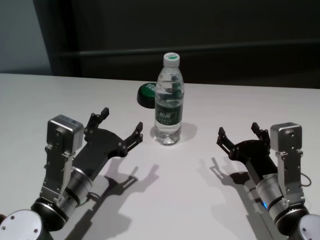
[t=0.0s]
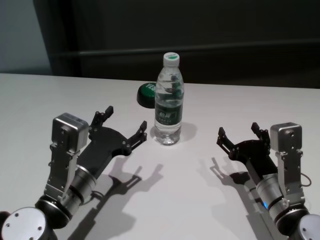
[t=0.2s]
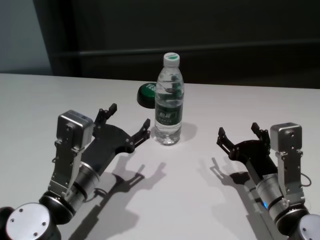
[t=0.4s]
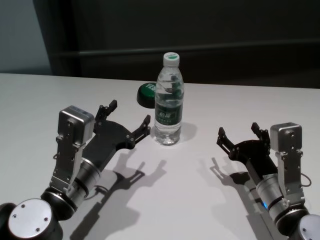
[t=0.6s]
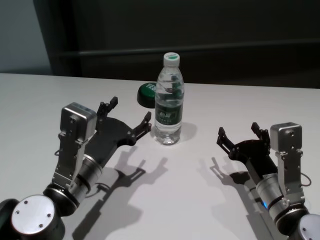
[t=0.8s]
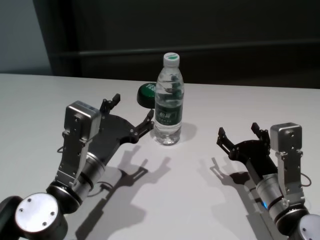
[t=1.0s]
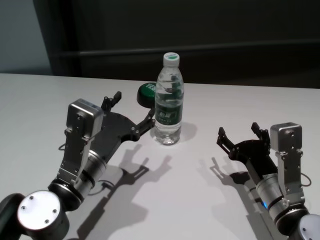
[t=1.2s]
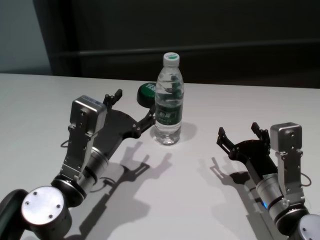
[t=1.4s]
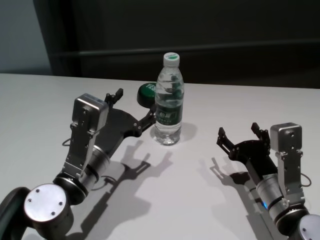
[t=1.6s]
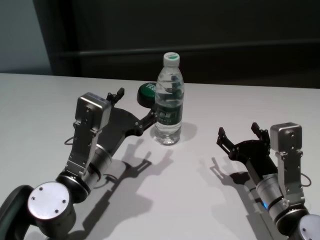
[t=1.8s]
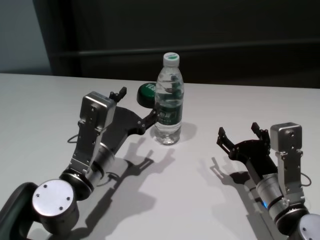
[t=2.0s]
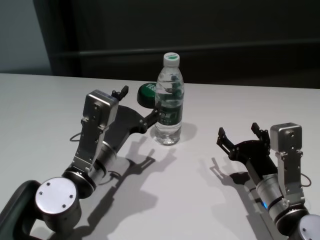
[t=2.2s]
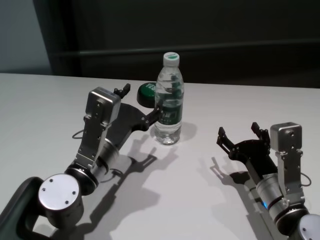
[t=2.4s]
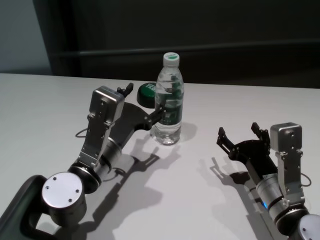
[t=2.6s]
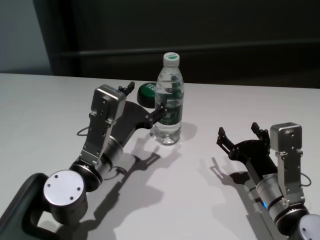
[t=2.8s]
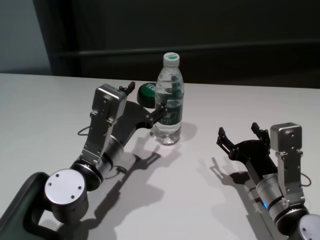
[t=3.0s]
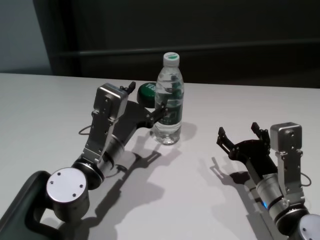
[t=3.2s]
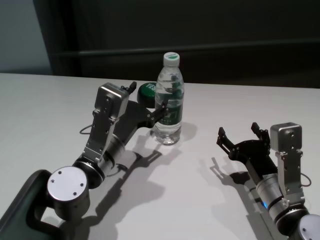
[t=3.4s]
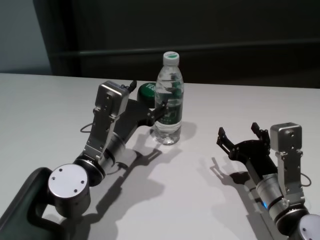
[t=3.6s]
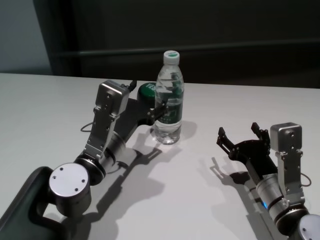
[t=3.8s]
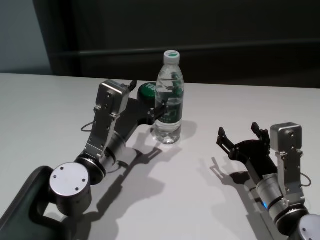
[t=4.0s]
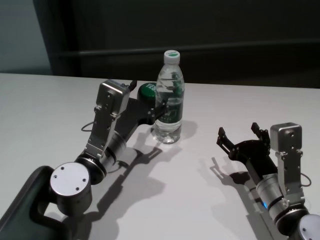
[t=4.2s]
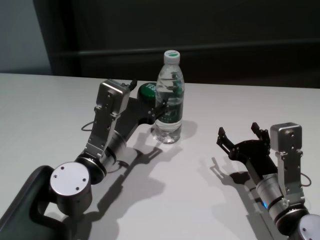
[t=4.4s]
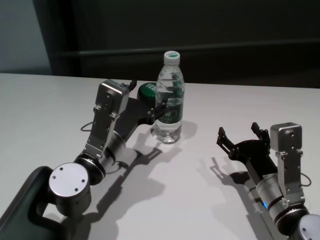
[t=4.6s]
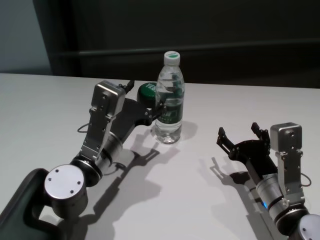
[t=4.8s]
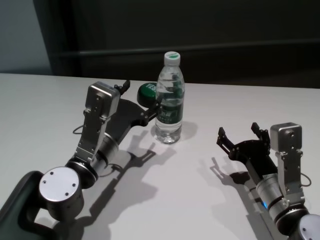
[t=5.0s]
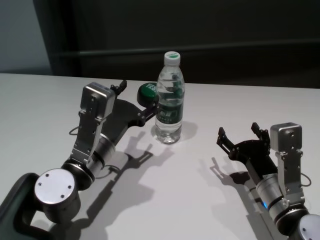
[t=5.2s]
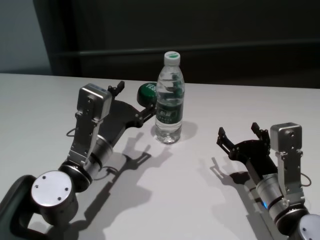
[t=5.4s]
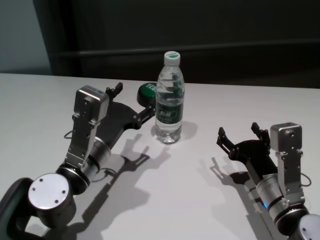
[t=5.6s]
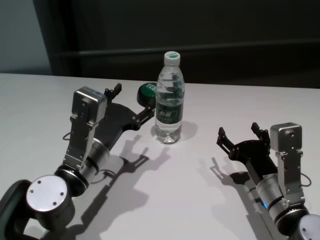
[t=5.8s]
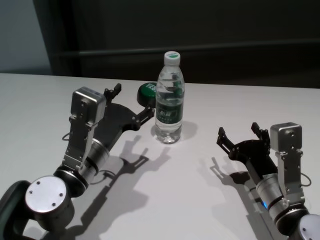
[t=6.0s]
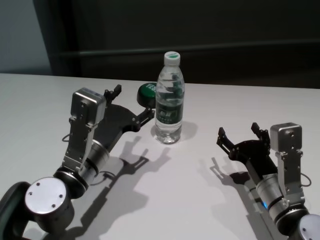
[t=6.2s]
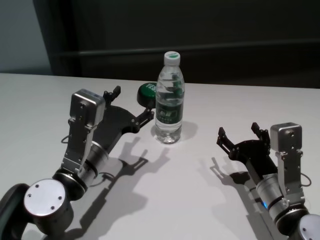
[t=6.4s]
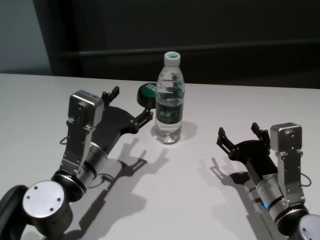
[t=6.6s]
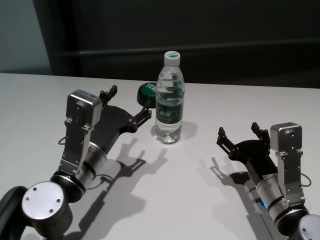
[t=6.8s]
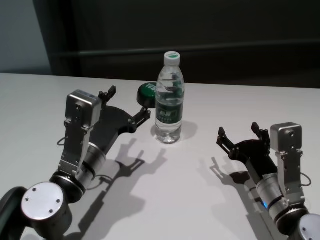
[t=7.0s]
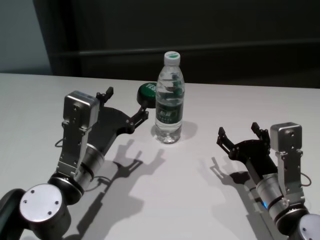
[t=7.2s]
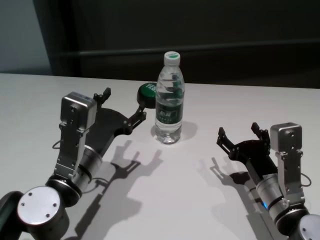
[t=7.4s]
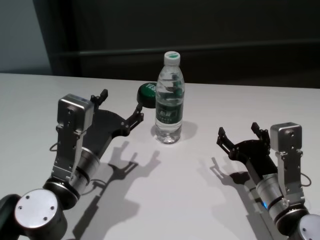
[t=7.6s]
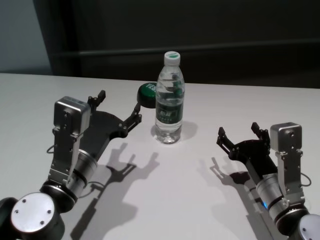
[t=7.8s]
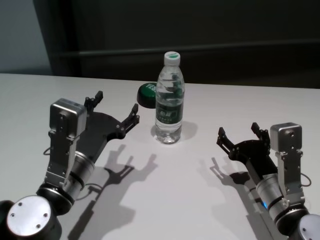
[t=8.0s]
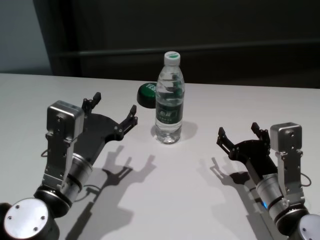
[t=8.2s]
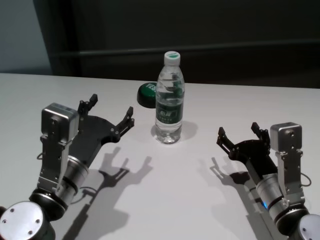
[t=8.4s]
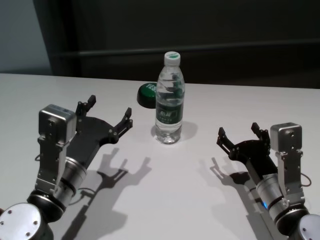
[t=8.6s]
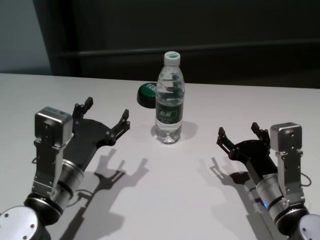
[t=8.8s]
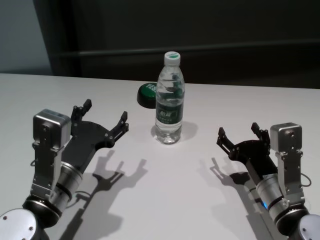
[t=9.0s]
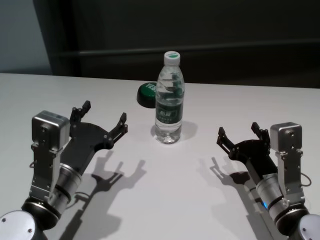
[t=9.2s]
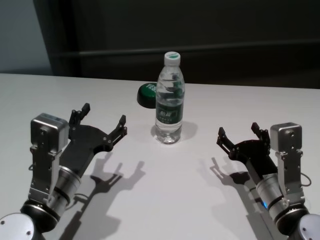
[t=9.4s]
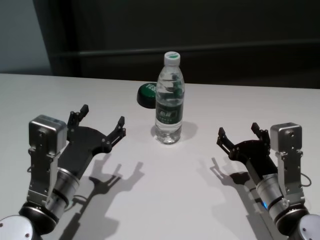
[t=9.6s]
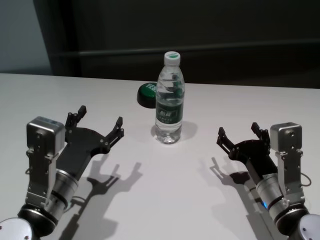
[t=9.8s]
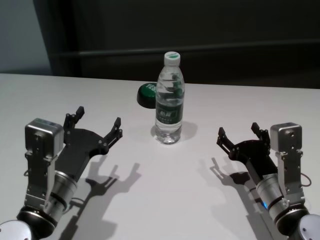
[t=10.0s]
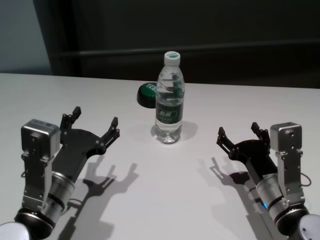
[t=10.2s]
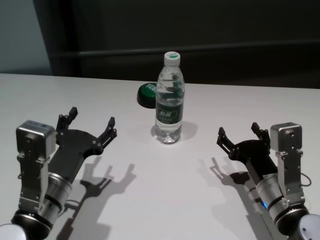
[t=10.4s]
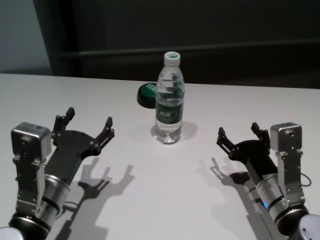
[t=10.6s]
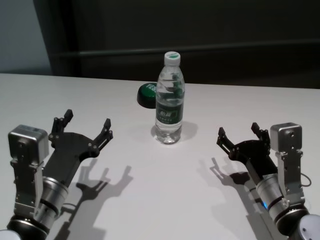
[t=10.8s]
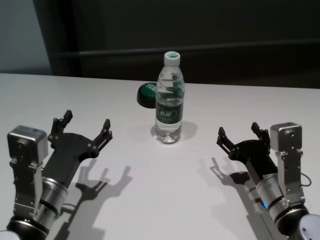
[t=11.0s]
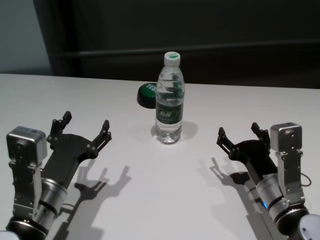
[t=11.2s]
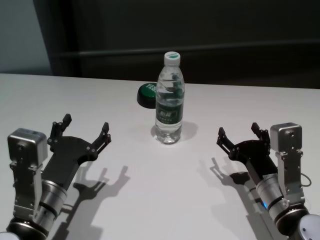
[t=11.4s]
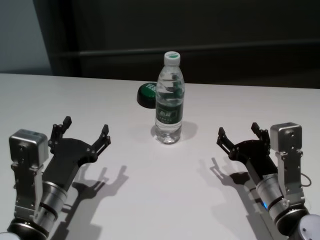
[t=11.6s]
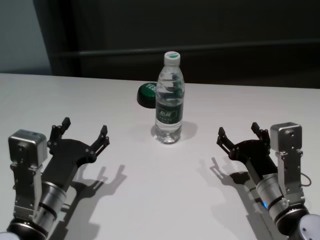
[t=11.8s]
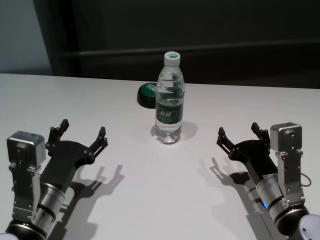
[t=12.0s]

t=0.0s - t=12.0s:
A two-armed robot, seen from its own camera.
Task of the whole recording: return to a safe position after touching an obstacle with your arm on the white table.
Step, t=0.0s - t=6.8s: Touch the bottle with left gripper.

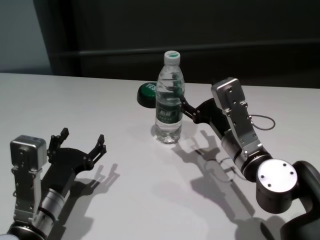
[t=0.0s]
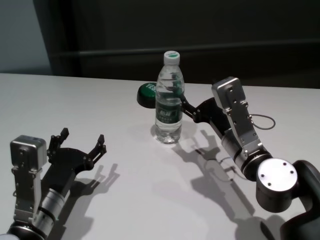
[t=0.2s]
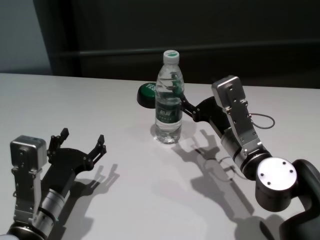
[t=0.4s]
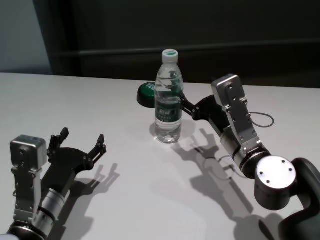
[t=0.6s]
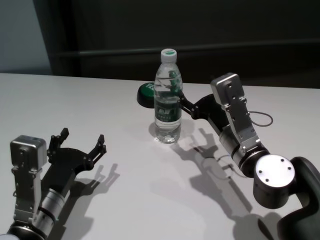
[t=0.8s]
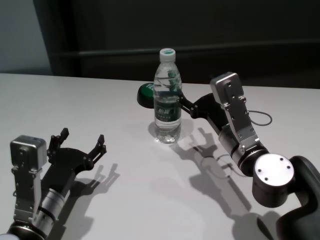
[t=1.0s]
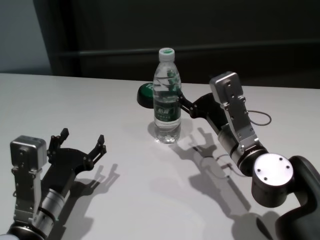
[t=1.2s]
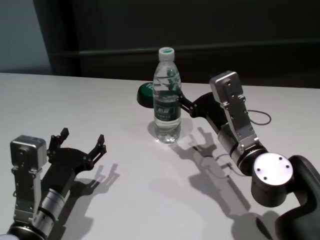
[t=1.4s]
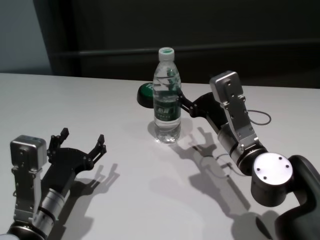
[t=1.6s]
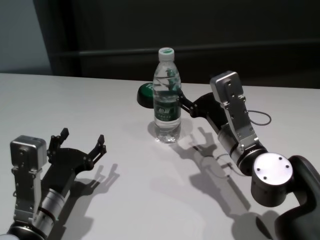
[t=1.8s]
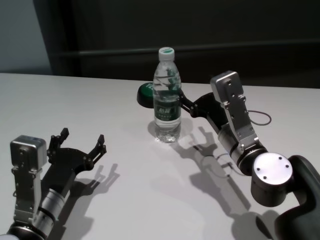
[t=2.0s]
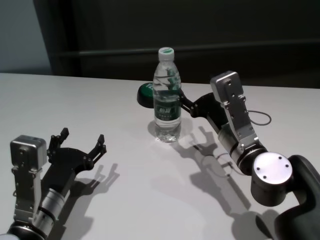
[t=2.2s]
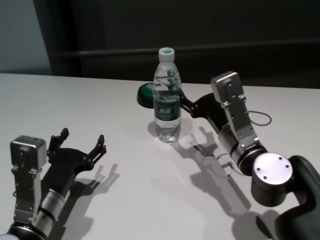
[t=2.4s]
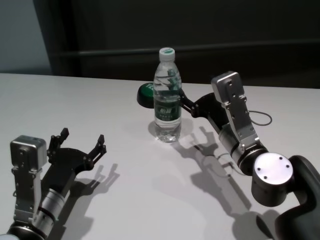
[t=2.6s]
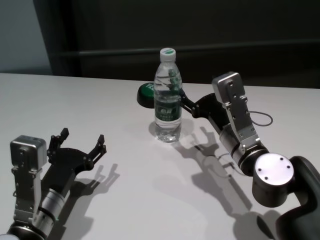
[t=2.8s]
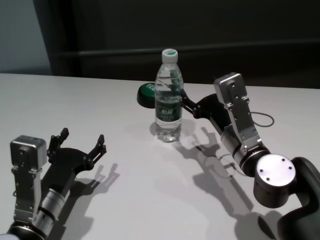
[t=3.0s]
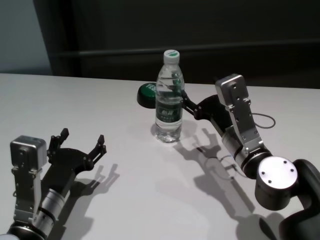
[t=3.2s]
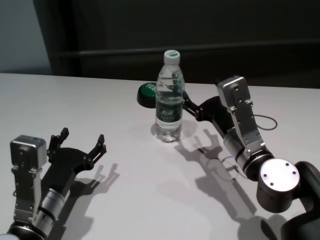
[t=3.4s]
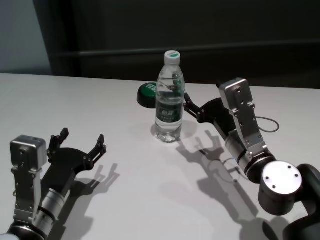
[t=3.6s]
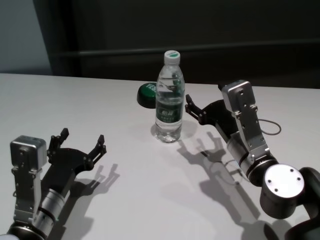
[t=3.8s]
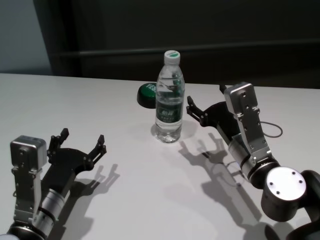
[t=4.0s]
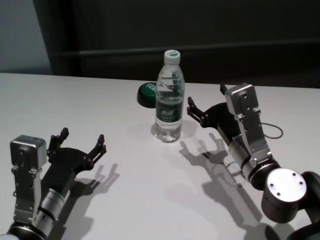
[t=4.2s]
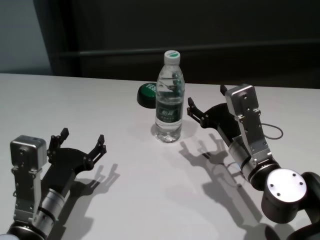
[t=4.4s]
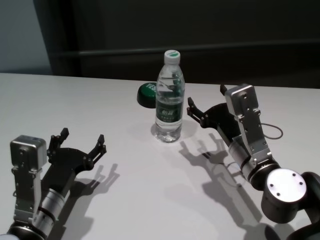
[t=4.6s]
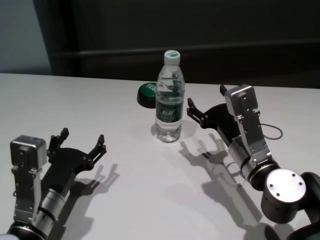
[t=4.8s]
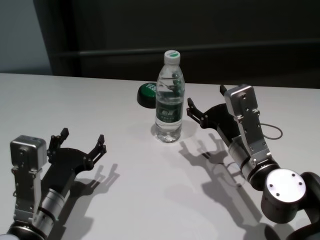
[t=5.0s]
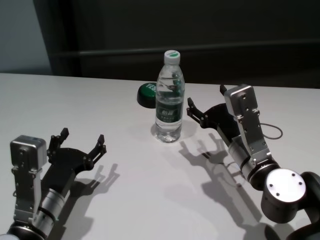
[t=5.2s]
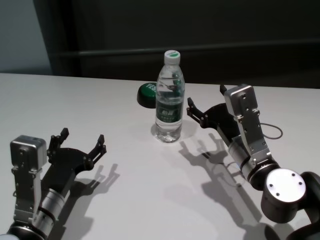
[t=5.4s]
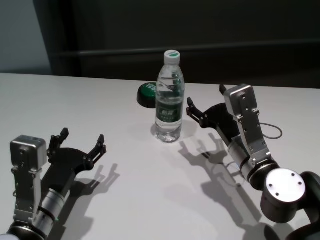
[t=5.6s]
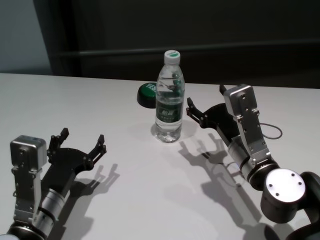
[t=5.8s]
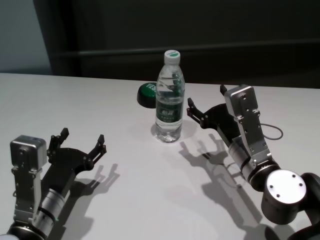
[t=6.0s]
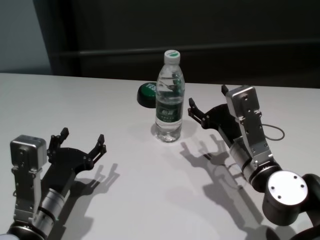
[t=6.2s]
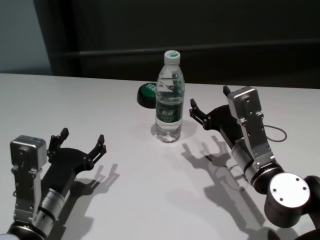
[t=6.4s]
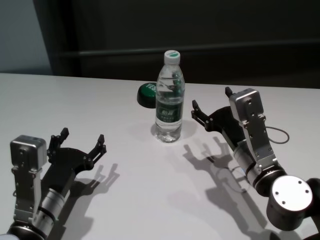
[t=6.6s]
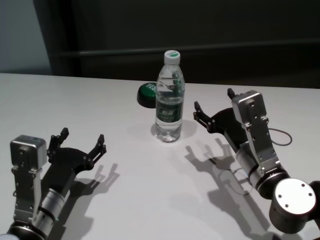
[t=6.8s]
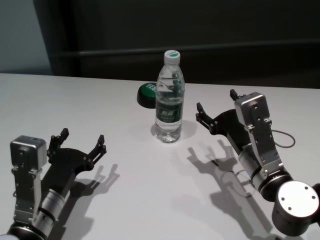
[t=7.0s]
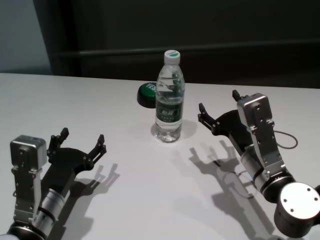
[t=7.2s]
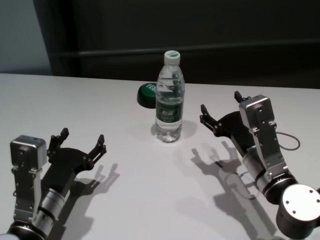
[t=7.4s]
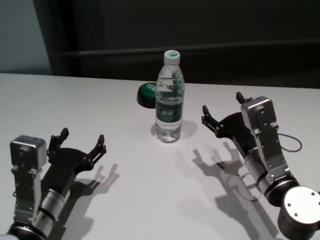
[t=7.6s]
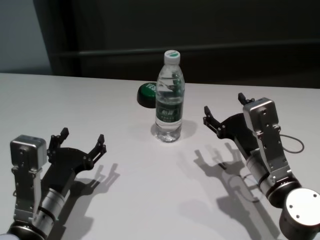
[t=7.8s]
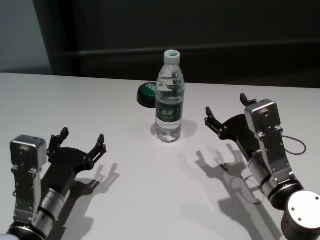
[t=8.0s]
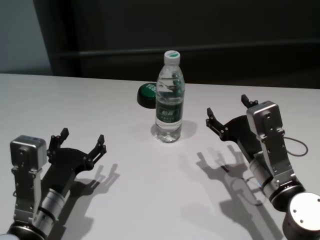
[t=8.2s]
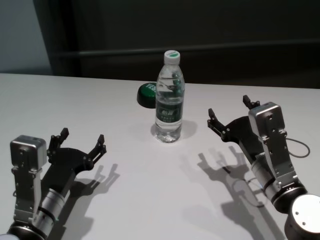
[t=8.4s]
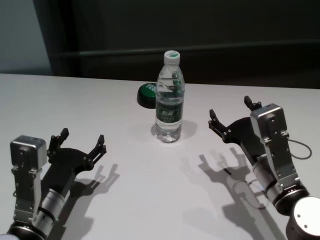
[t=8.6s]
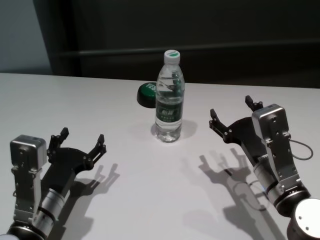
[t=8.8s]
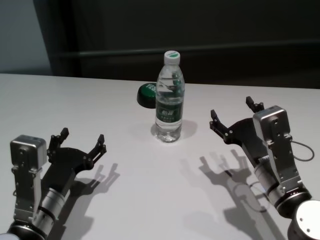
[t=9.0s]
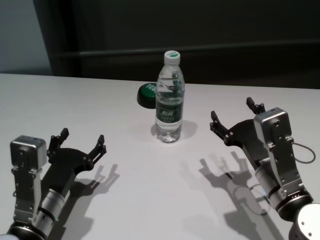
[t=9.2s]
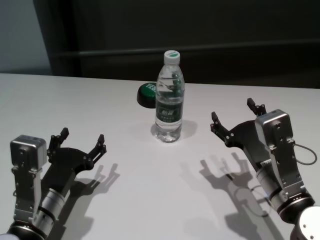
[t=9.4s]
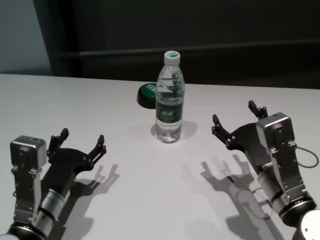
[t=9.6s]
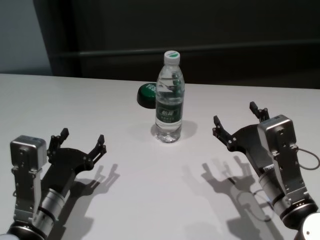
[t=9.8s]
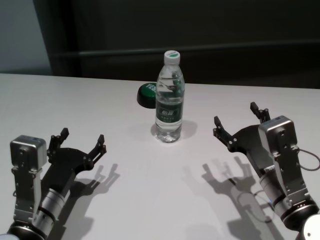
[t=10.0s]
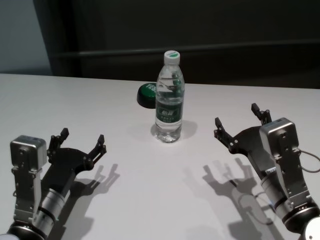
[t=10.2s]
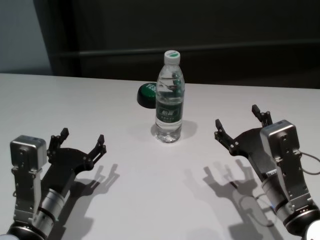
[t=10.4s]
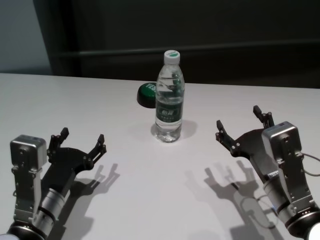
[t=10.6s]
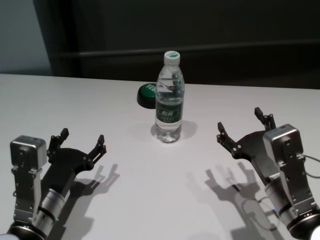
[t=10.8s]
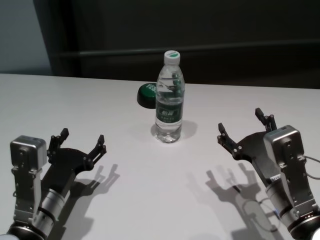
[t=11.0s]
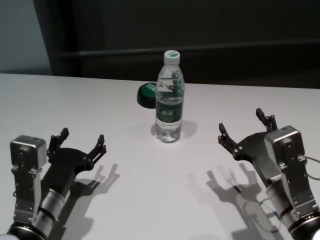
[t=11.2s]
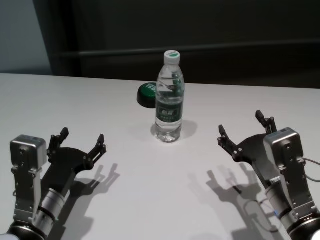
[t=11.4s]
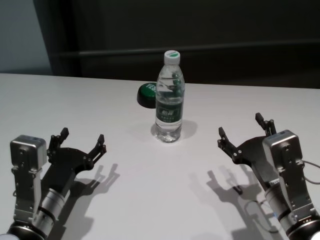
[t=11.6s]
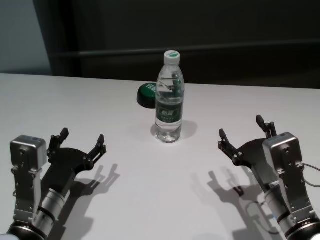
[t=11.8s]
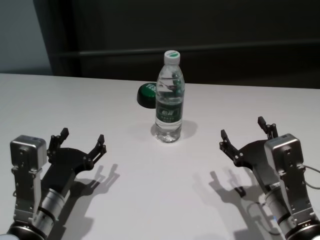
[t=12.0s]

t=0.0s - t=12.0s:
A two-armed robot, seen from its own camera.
Task of the whole recording: return to a safe position after touching an obstacle with your arm on the white table.
Step, t=0.0s - t=6.2s: Touch the bottle with right gripper.
